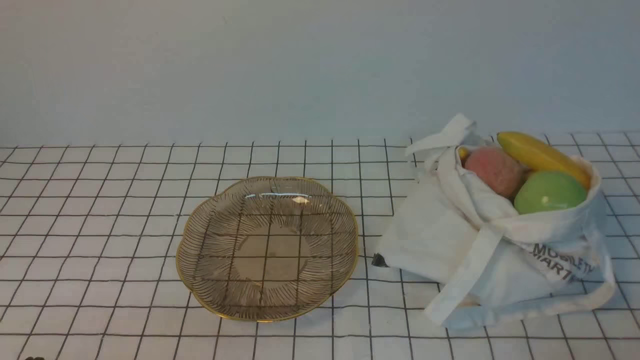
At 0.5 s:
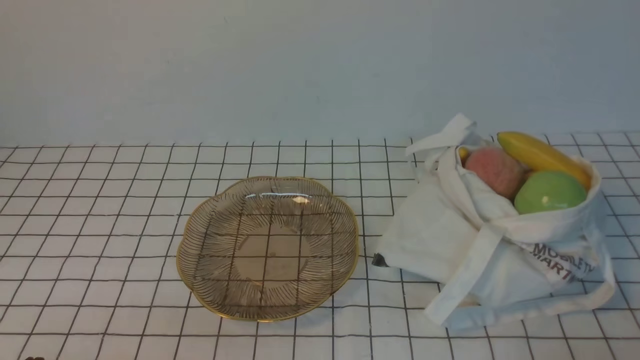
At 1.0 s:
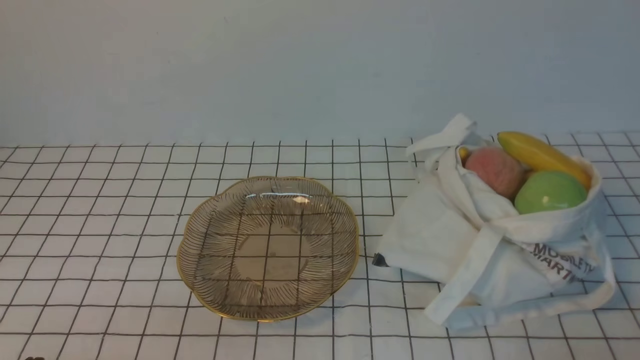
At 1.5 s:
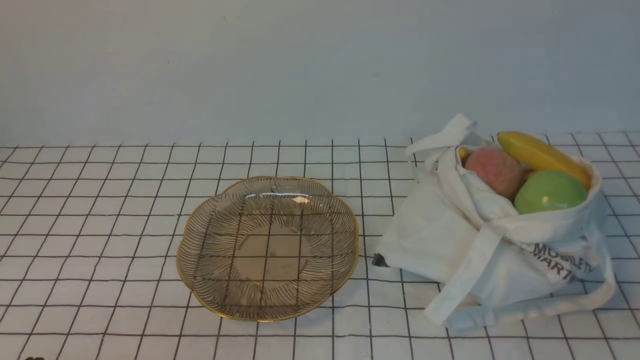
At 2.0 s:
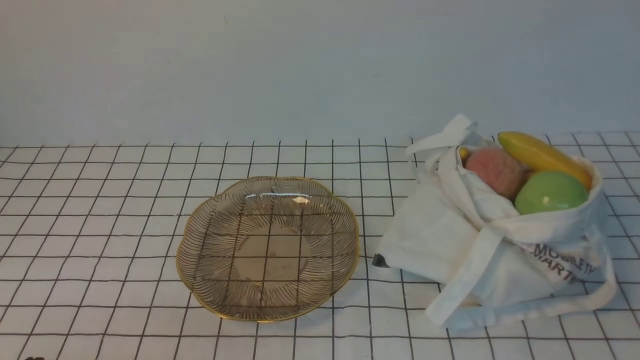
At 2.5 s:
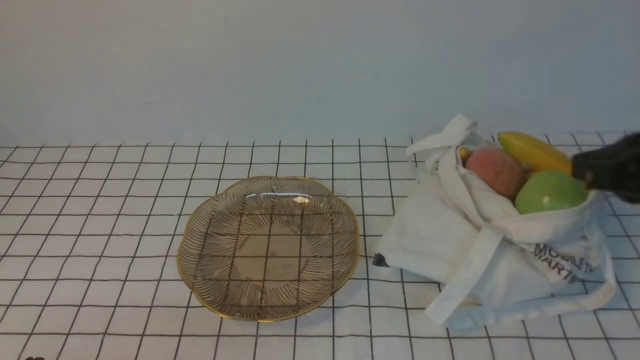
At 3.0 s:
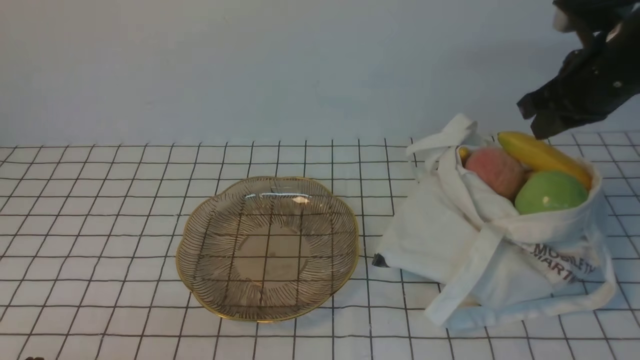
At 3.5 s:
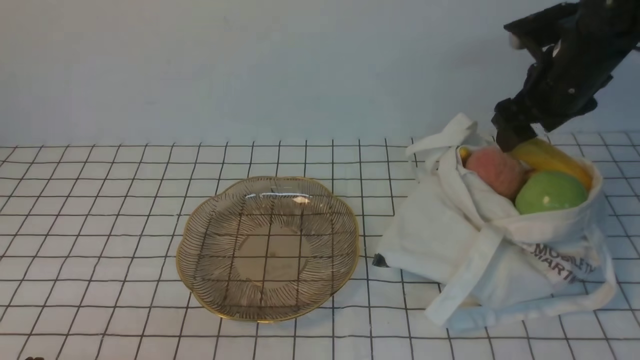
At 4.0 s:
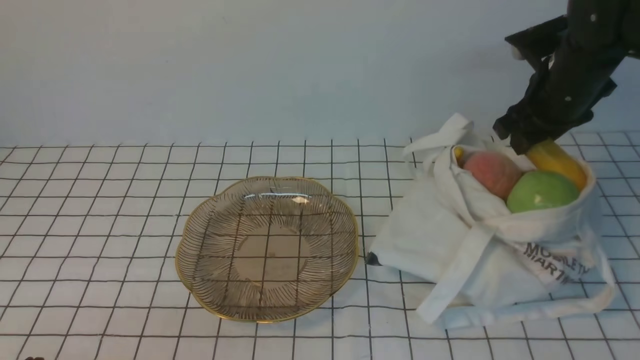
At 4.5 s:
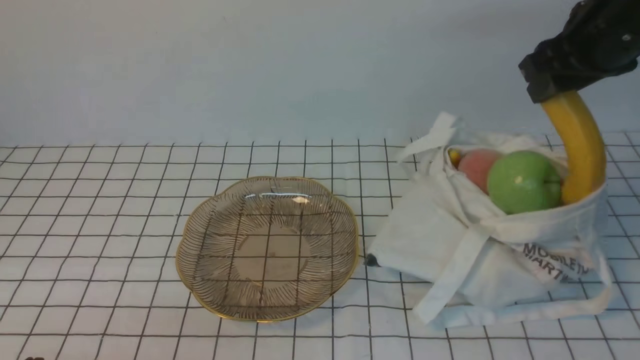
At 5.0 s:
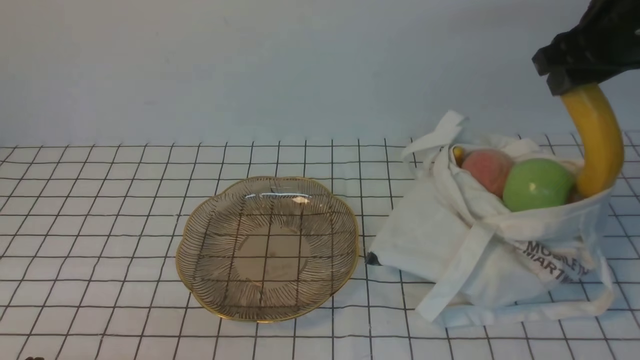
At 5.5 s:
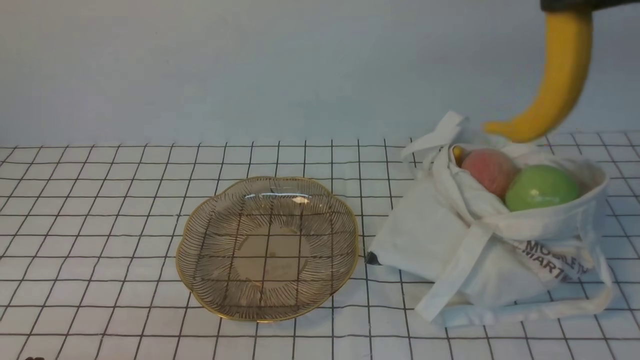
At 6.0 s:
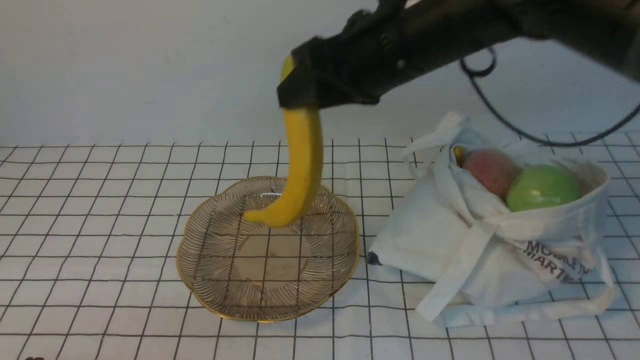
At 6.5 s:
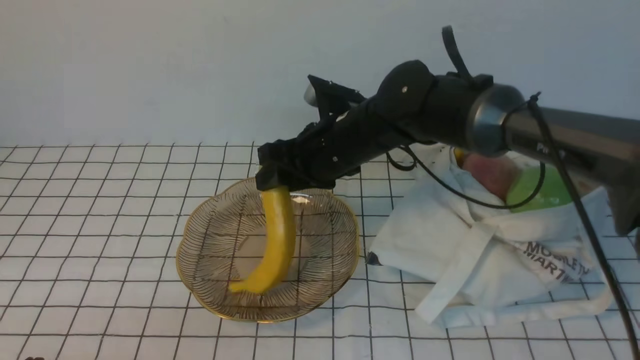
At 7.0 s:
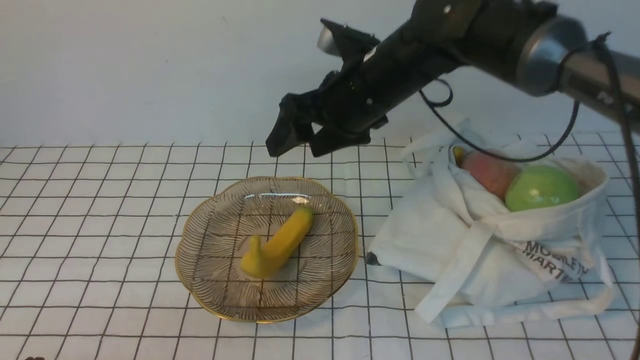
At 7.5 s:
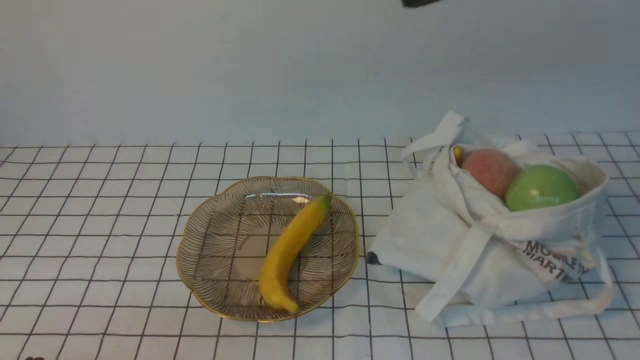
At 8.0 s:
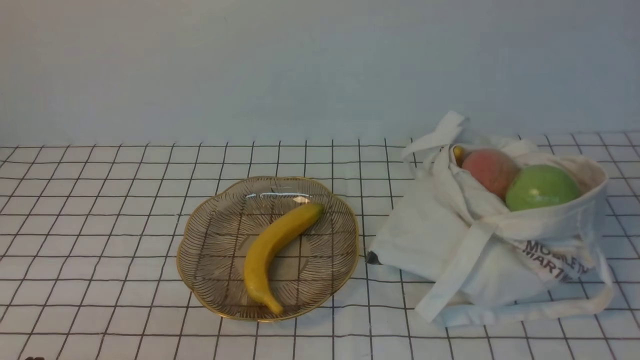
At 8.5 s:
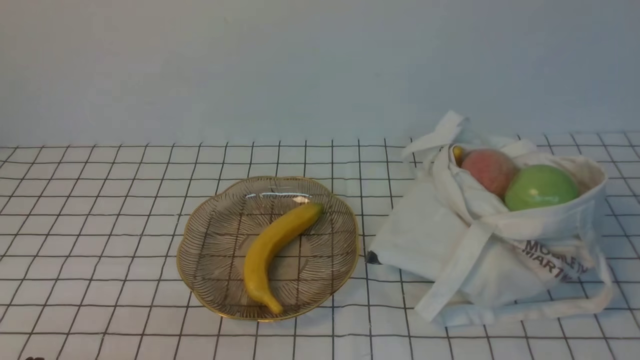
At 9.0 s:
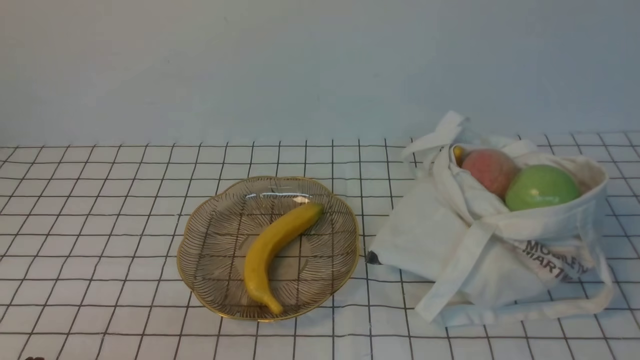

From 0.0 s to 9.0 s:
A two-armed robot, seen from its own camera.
Step, from 0.0 s to 4.0 s: use the right arm to grab a banana from the bag.
Step, from 4.5 s to 7.0 s: use the right arm to put the banana into the empty plate on the right.
From 2.0 s to 4.5 s: The right gripper is displaced forward by approximately 30 cm, and opens.
From 4.5 s to 7.0 s: The right gripper travels to the left by about 20 cm.
From 7.0 s to 9.0 s: The right gripper heads backward and to the right, covering roughly 50 cm, and closes up.

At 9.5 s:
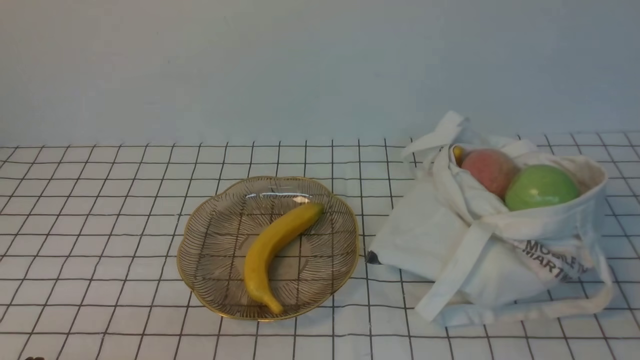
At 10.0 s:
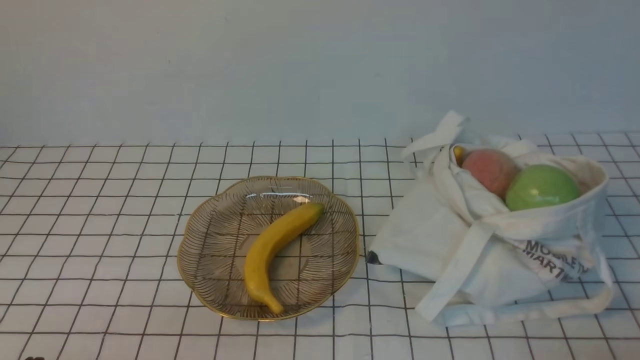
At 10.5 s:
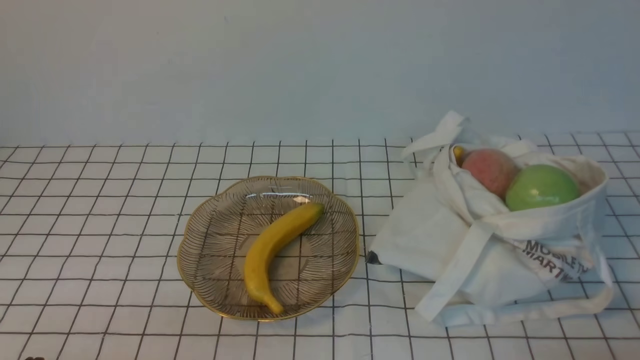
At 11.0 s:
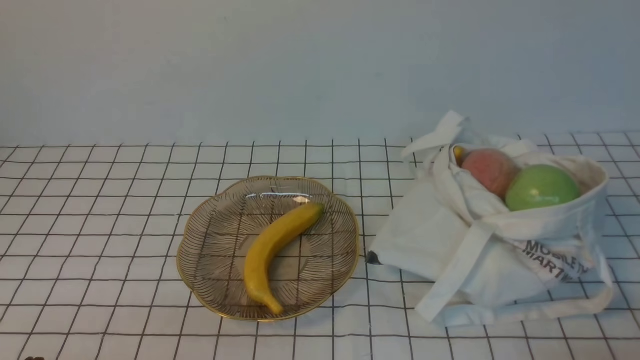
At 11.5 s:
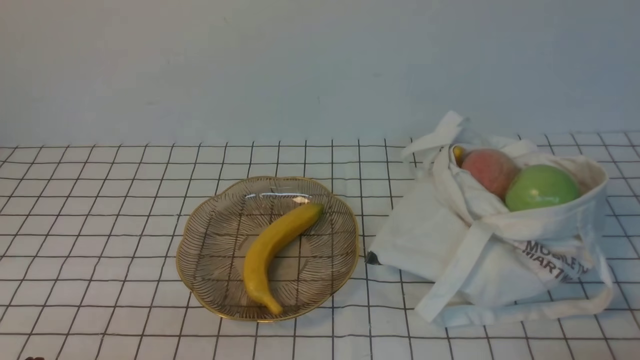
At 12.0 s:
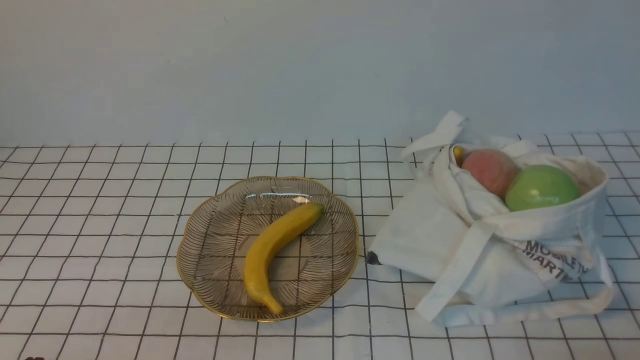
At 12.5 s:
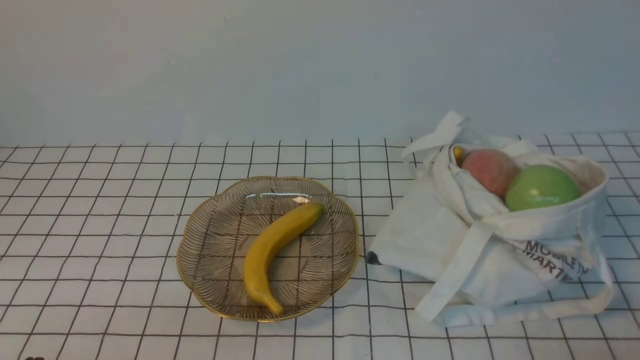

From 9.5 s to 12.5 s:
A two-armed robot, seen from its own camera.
From 11.0 s to 12.5 s: The two grippers keep their place.
